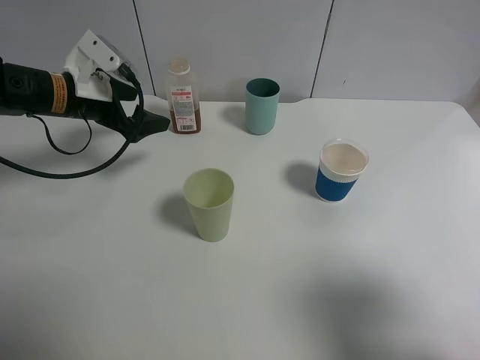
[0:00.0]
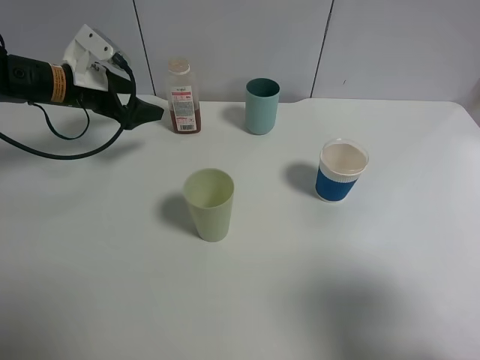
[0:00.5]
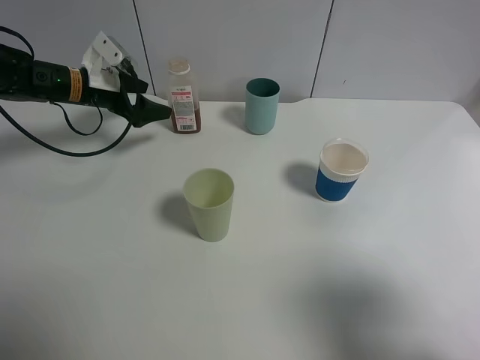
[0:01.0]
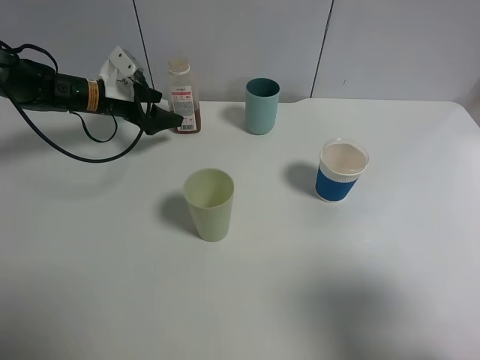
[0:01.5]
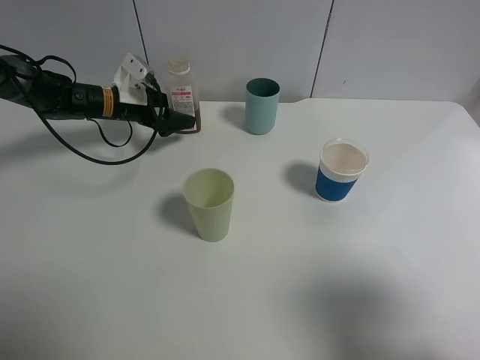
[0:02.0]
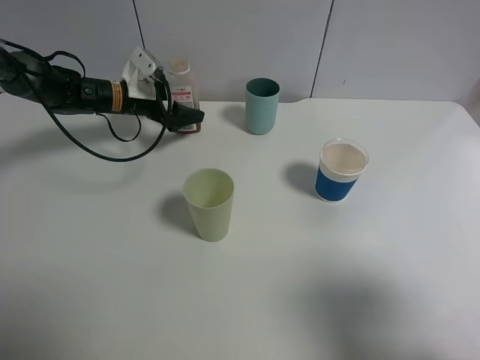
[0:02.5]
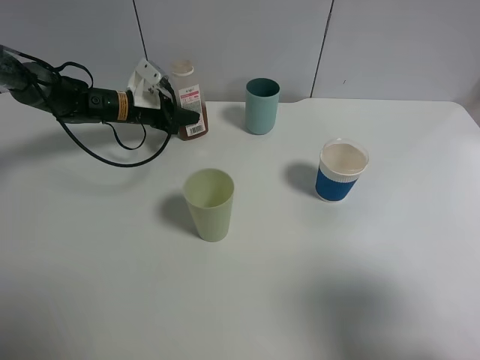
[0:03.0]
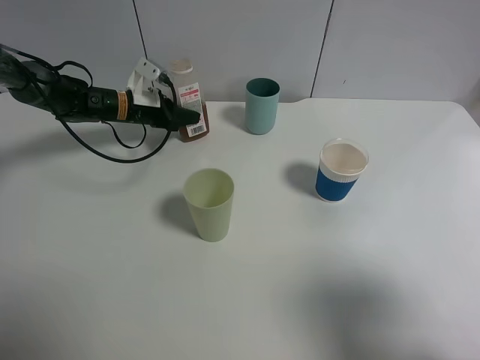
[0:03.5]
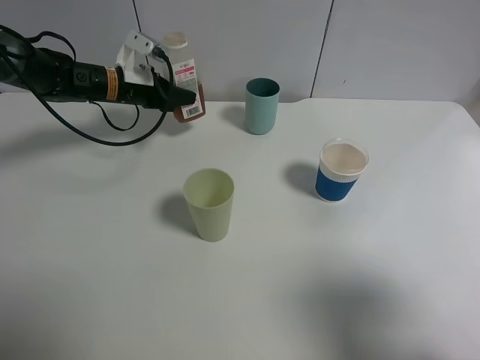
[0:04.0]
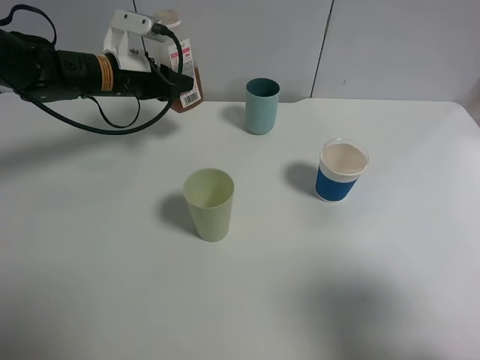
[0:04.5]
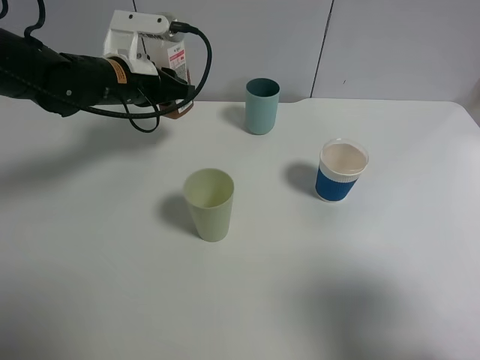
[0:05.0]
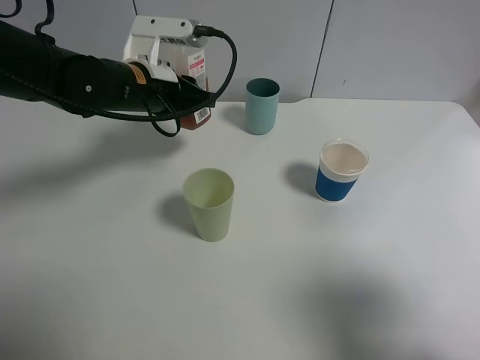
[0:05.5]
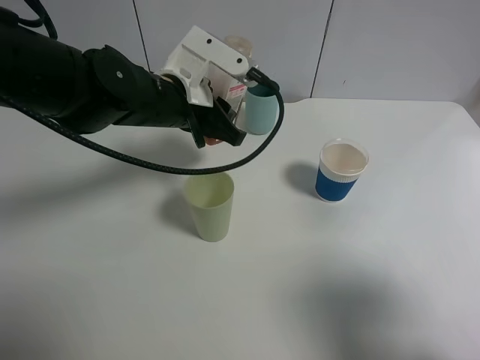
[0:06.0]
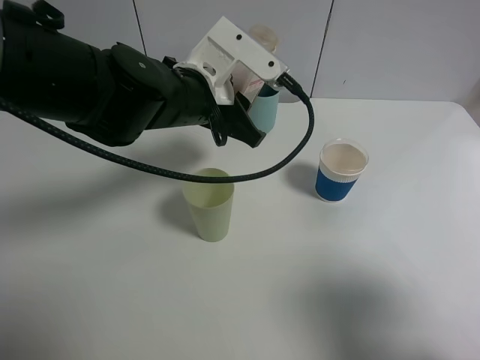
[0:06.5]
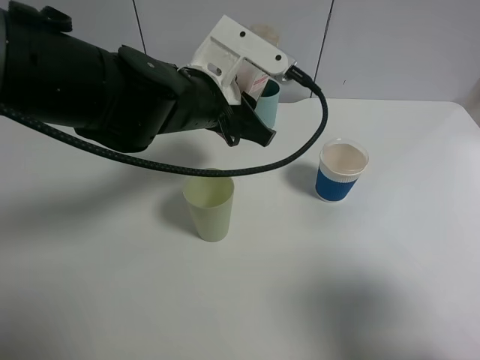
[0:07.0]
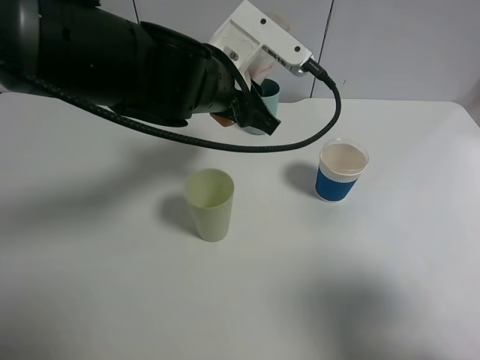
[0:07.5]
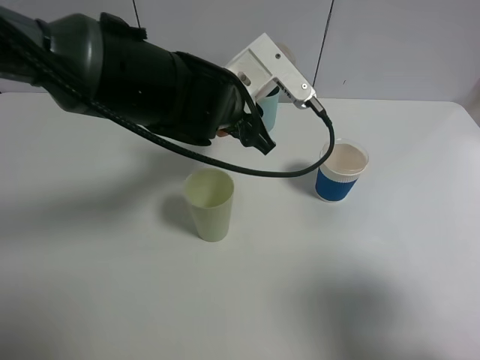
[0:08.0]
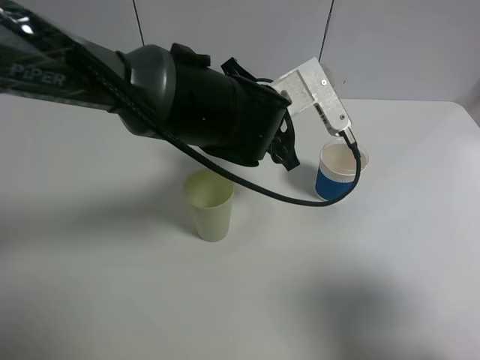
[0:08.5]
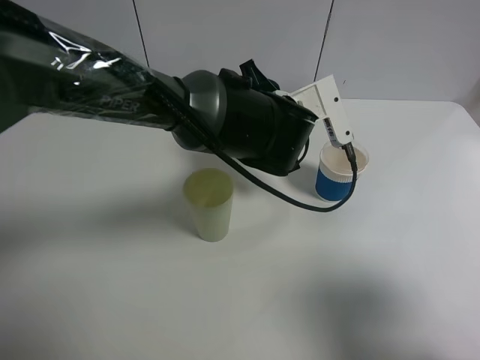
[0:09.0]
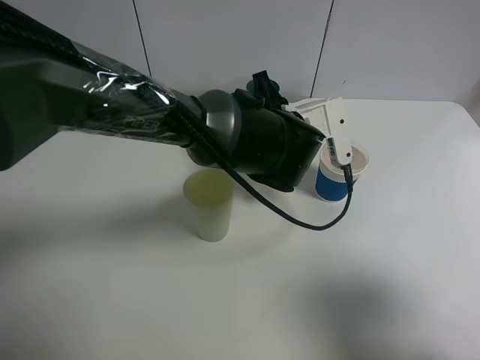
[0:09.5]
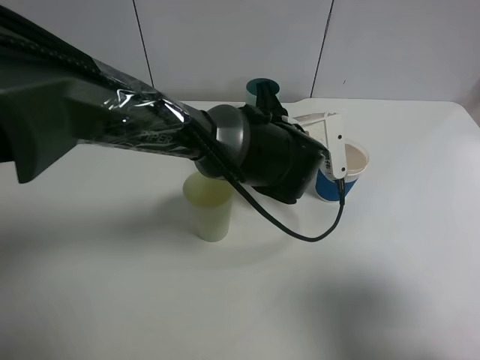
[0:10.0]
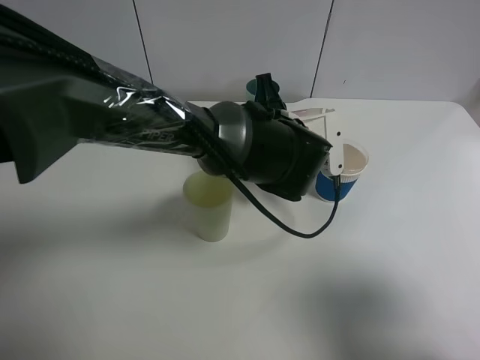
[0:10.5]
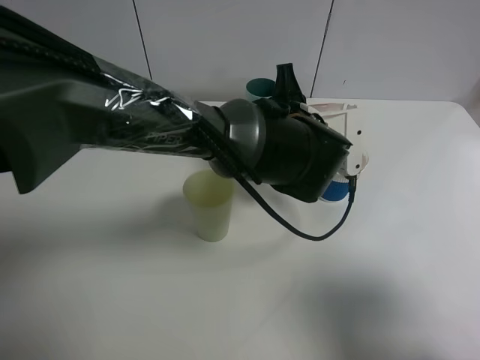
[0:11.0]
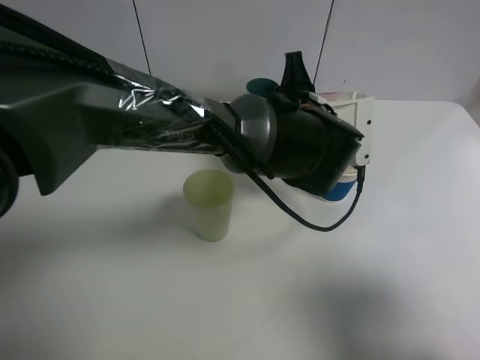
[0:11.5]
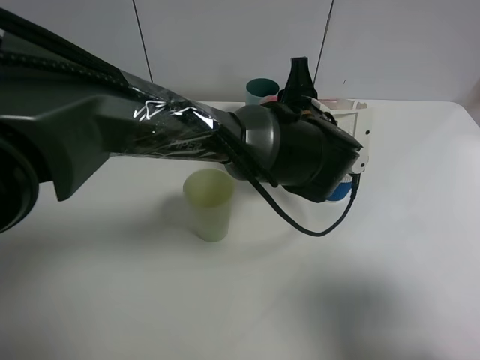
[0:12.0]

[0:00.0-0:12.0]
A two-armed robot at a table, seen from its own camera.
Task of the whole recording: use a gripper to hold the bottle of the drink and pour it into a random cup.
Step, 0:00.0 to 0:02.5: Grasp the cranberry juice bottle with the left gripper.
0:00.0 to 0:02.0: The left gripper heads forward and downward, covering approximately 15 cm.
0:02.0 to 0:04.0: The left gripper closes up.
0:04.0 to 0:06.0: The left gripper is displaced backward, to the right and upward by some 20 cm.
0:06.0 to 0:08.0: The left gripper goes about 5 cm to the right.
0:08.0 to 0:10.0: The left gripper travels to the right and downward by about 10 cm.
0:10.0 to 0:12.0: There are only small adjustments of the grippers.

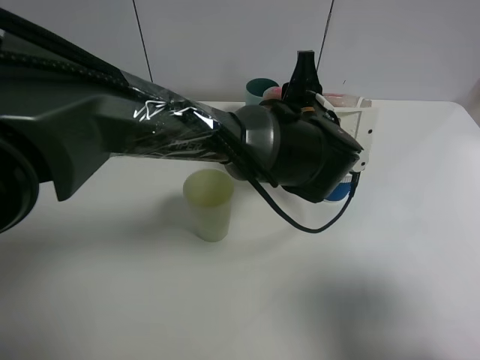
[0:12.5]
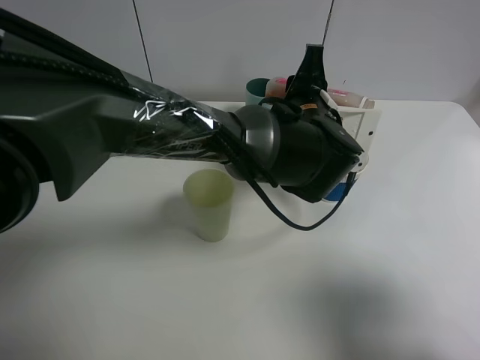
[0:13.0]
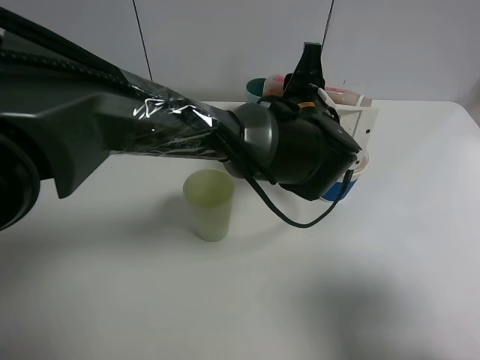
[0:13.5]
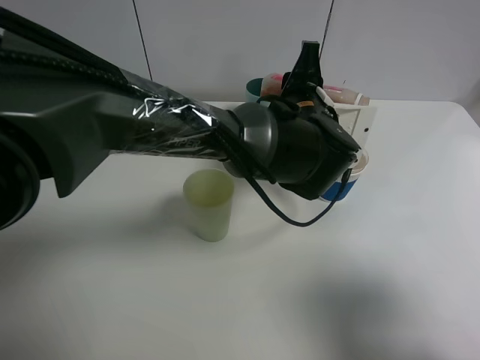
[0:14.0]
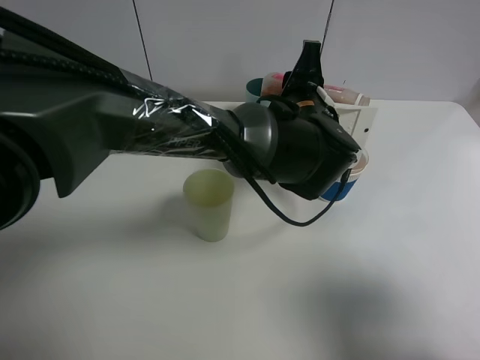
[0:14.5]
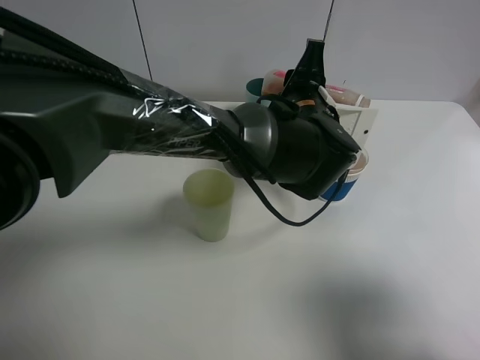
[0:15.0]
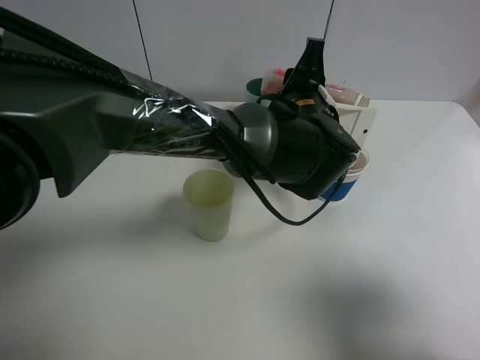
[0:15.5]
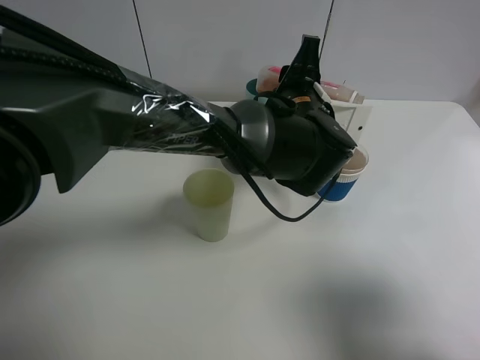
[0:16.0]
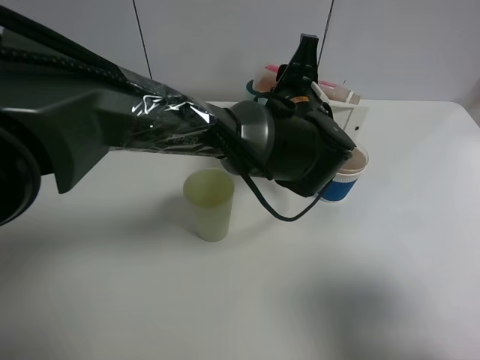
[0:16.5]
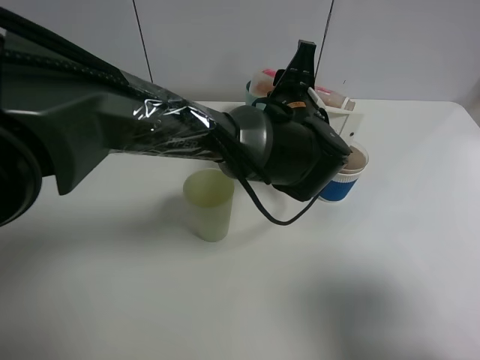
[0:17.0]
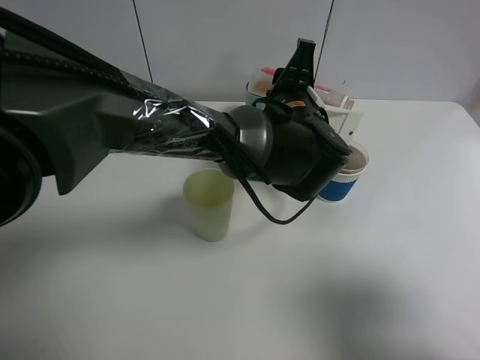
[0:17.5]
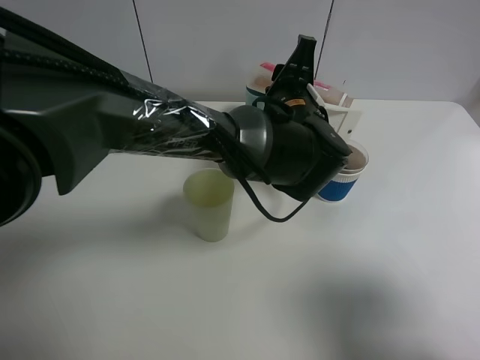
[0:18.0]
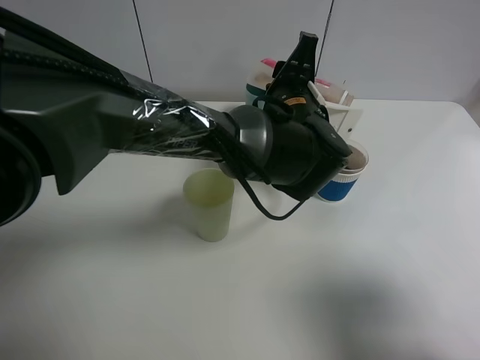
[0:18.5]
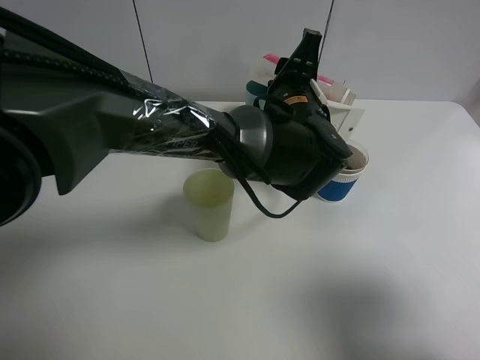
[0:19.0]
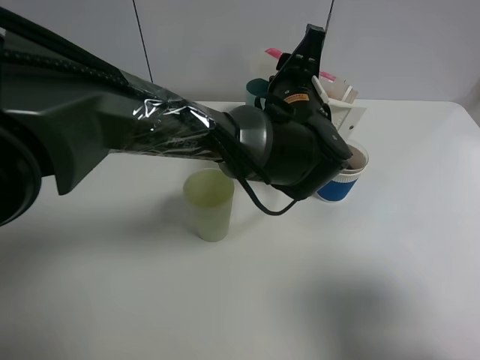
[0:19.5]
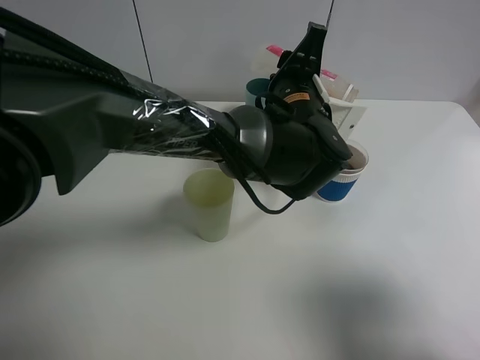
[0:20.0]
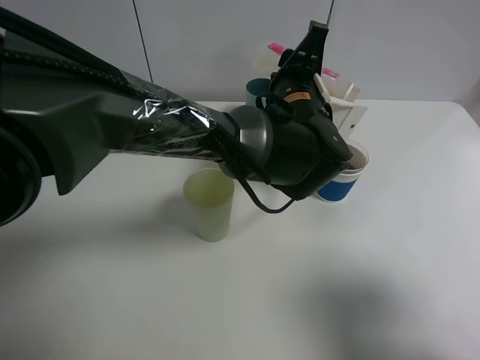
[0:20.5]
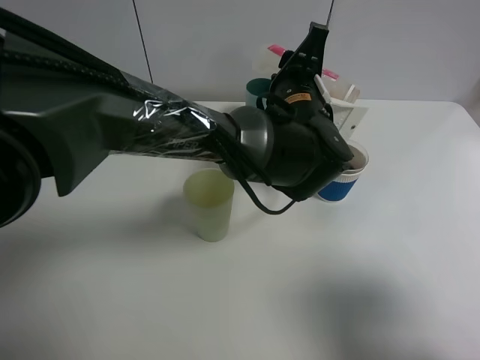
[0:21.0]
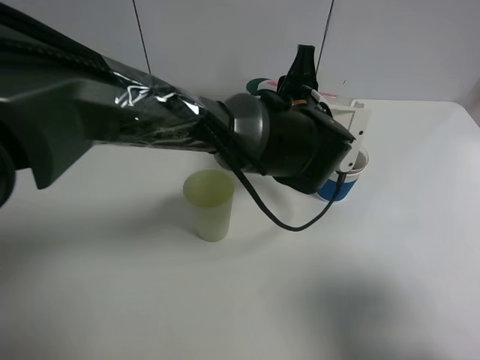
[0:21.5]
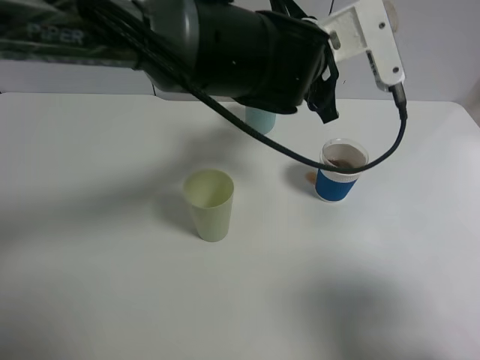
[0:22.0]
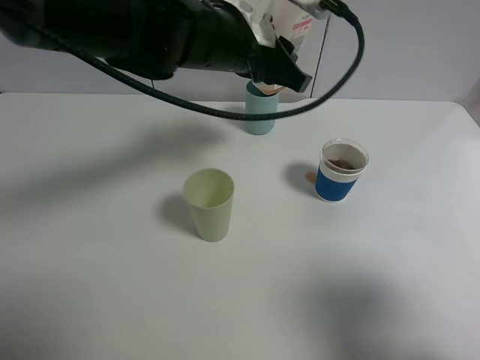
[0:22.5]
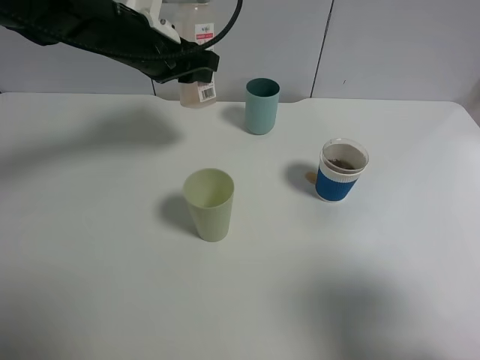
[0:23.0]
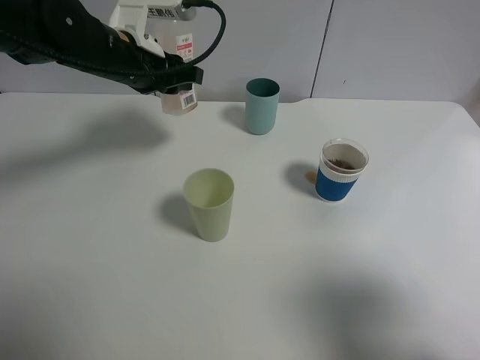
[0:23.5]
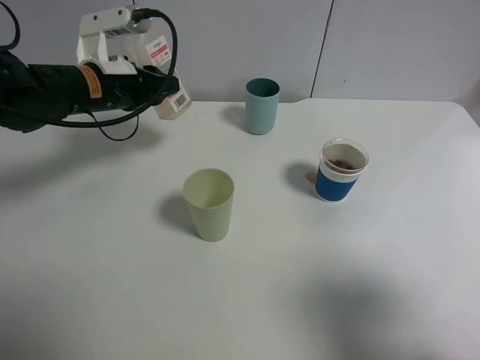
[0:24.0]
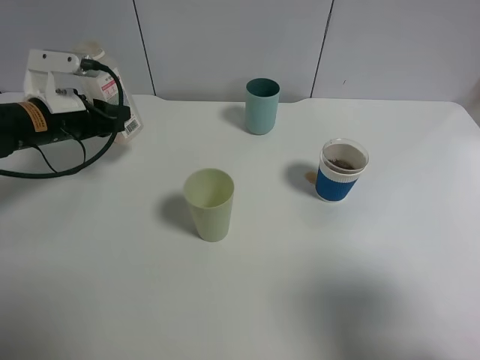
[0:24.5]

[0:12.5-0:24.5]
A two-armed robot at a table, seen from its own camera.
Task of the whole recording: use a gripper to hold the bottle of the drink and pour it into a random cup.
Step, 0:12.5 to 0:21.0: Pour the cranberry juice into the paper cup with the left gripper.
0:12.5 to 0:16.5: There are only small adjustments of the grippers.
0:16.5 to 0:18.5: Neither gripper changes place.
0:18.5 to 0:20.5: The grippers move only a little.
0:20.5 to 0:22.5: The left gripper travels to the left and upward by some 15 cm.
0:22.5 to 0:24.5: The left gripper travels to the left and downward by some 25 cm.

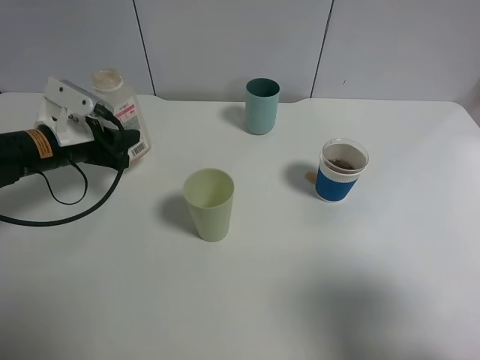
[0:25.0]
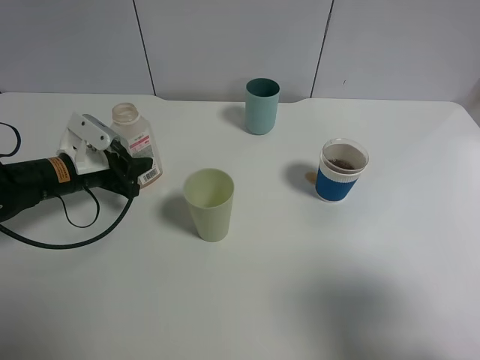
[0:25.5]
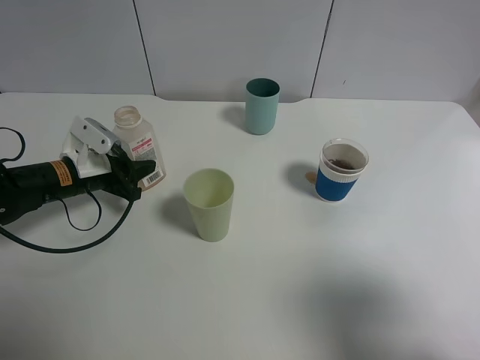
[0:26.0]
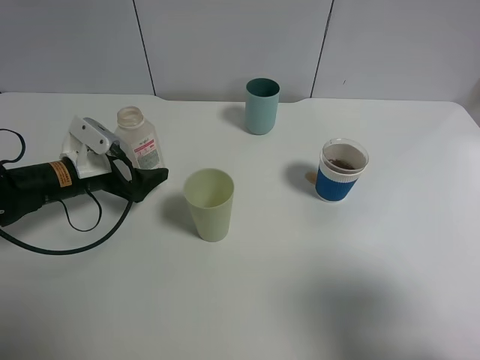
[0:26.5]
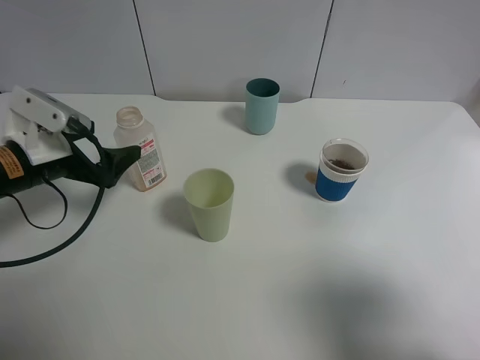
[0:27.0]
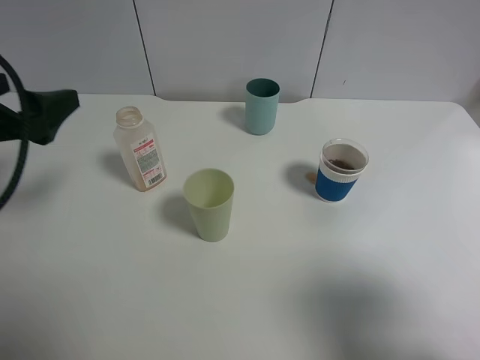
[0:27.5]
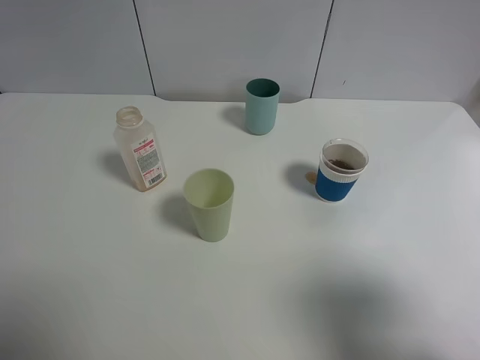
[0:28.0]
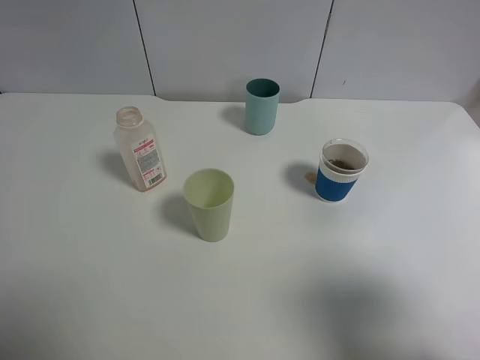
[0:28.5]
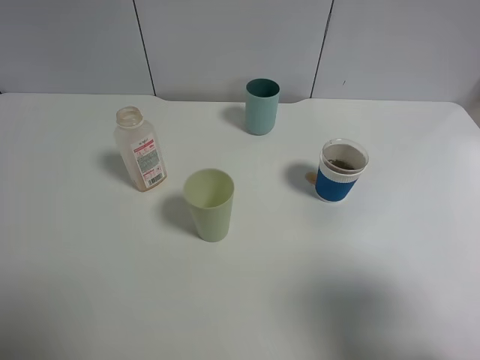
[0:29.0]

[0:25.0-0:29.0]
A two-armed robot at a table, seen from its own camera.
Task of the whole recording: use a gripper to hold the bottle of the drink and pour it into a random cup.
Step, 0:25.0 to 0:27.0: Place the cranberry juice bottle on the table with the left gripper.
0:25.0 to 0:27.0: The left gripper heads backward, covering approximately 5 cm, and opens up.
0:27.0 to 0:29.0: The left gripper is displaced backward and upward by some 25 cm.
